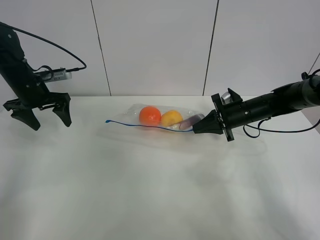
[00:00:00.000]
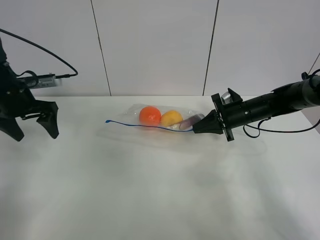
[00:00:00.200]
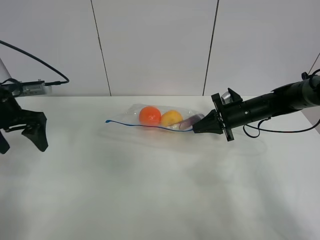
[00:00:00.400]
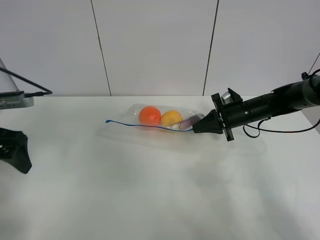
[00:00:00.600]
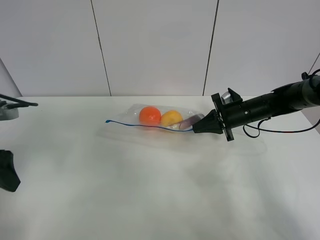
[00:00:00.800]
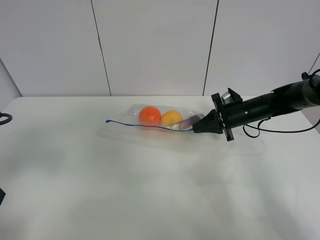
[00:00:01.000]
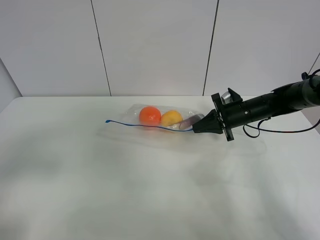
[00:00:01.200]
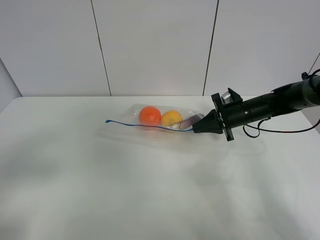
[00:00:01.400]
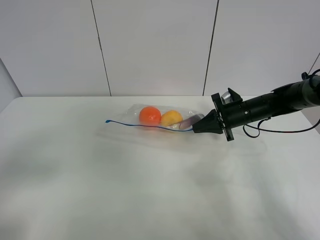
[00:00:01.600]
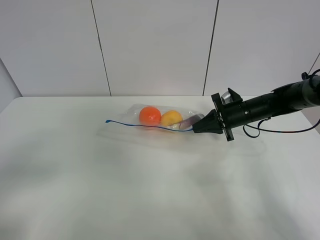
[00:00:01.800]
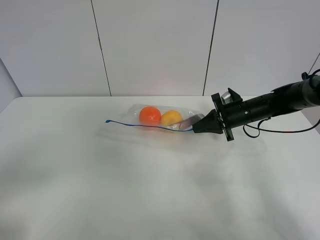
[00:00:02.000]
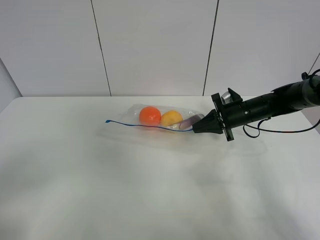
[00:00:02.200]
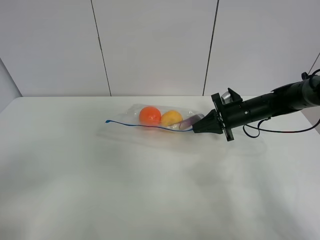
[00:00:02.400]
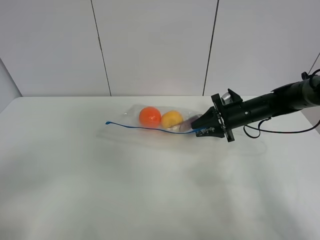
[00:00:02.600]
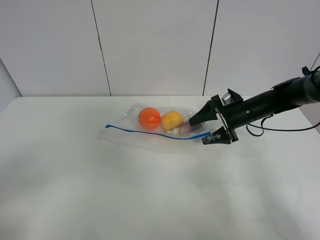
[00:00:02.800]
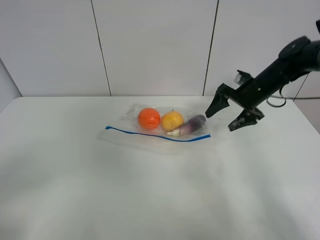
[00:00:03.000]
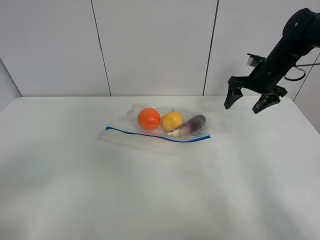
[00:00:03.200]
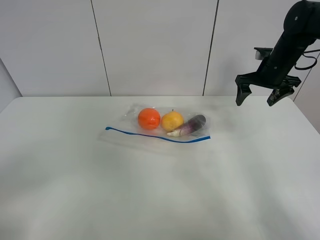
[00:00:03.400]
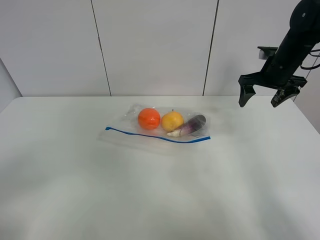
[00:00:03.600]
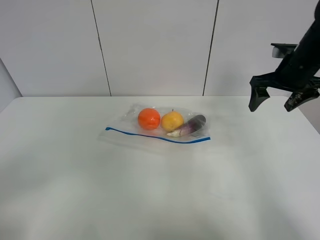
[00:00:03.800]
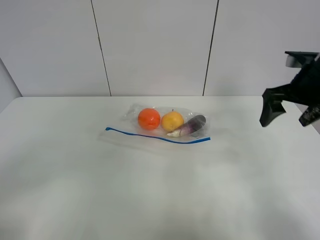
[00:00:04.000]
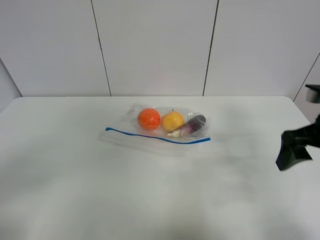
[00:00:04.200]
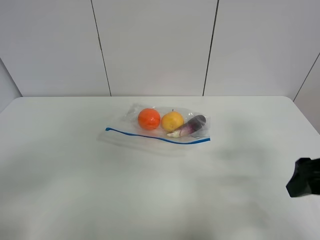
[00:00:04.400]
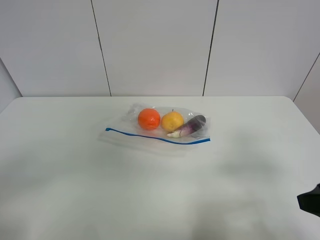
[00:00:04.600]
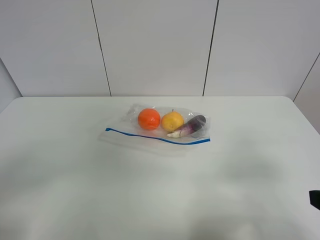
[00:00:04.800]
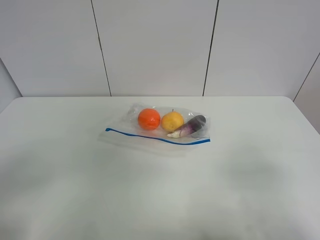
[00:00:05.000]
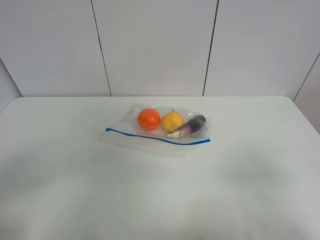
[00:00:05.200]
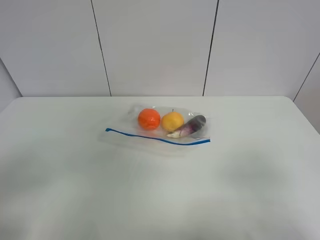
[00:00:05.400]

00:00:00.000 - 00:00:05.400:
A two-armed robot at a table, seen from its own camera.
00:00:00.000 - 00:00:01.400: The left gripper is displaced backward by some 35 cm.
00:00:01.400 - 00:00:02.800: The left gripper shifts about 10 cm backward, while the right gripper opens up.
00:00:02.800 - 00:00:04.000: The right gripper moves upward and backward, approximately 20 cm.
00:00:04.000 - 00:00:05.400: The right gripper travels backward by some 30 cm.

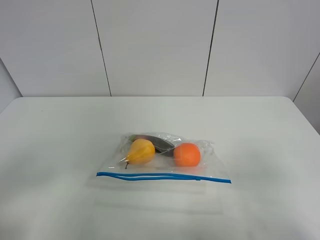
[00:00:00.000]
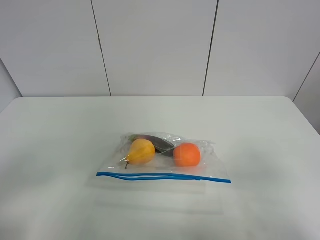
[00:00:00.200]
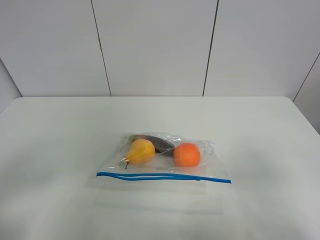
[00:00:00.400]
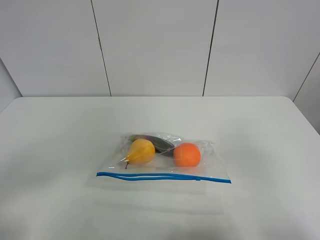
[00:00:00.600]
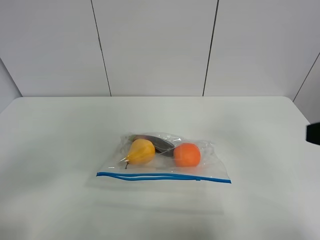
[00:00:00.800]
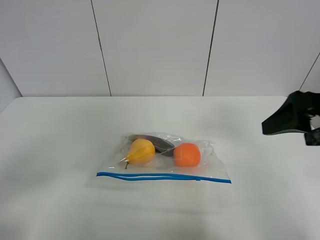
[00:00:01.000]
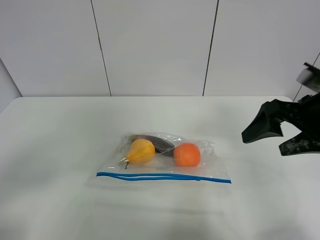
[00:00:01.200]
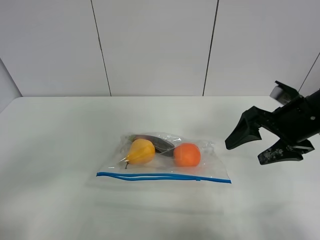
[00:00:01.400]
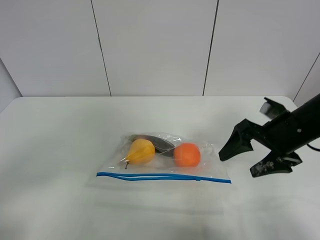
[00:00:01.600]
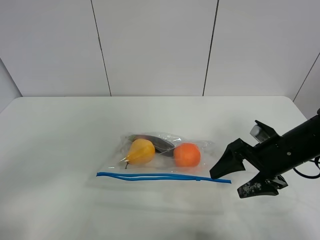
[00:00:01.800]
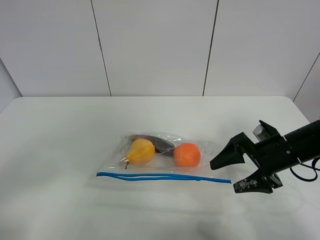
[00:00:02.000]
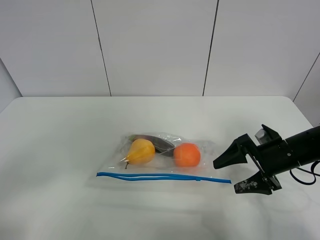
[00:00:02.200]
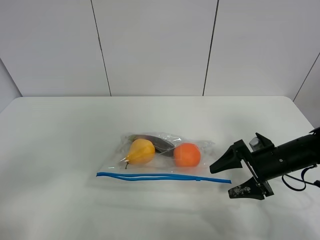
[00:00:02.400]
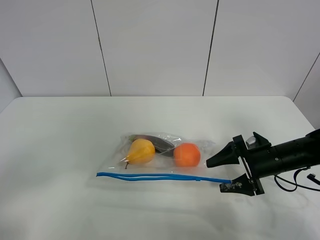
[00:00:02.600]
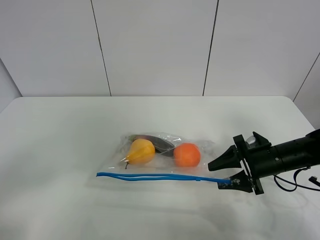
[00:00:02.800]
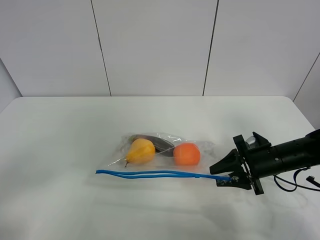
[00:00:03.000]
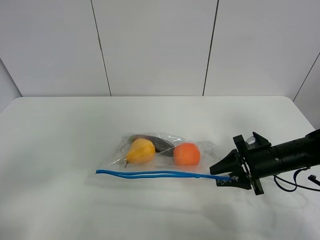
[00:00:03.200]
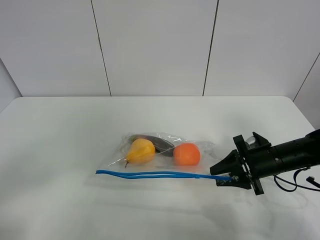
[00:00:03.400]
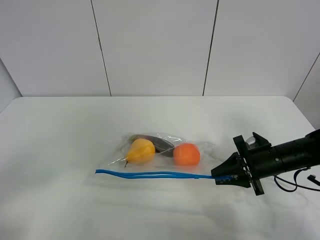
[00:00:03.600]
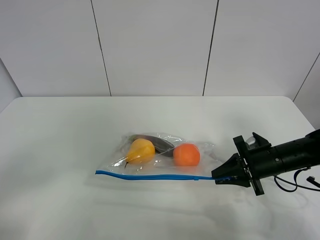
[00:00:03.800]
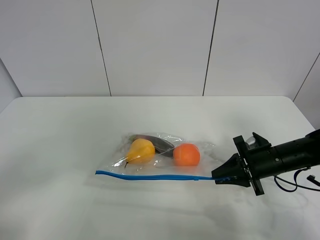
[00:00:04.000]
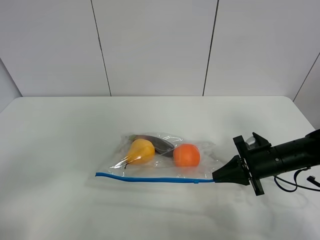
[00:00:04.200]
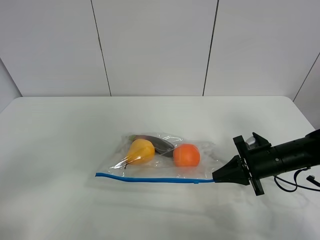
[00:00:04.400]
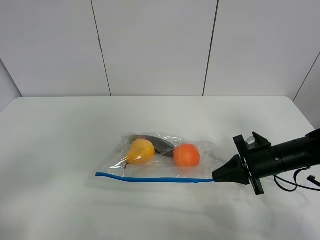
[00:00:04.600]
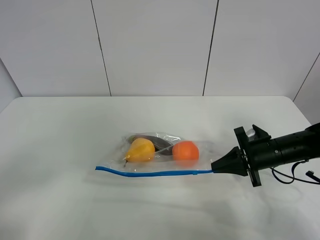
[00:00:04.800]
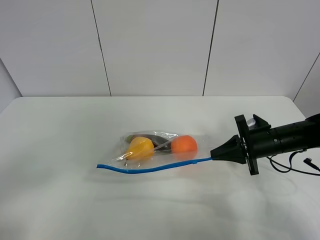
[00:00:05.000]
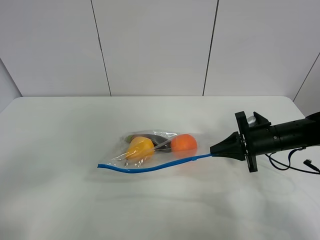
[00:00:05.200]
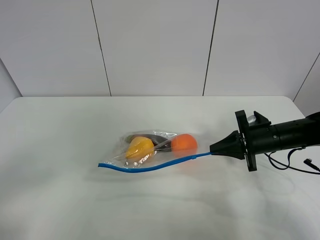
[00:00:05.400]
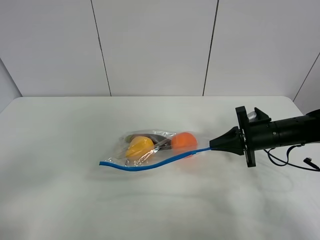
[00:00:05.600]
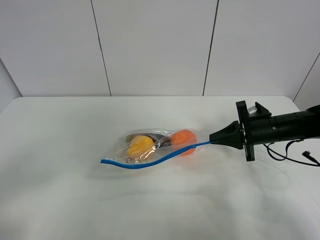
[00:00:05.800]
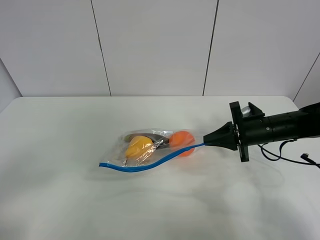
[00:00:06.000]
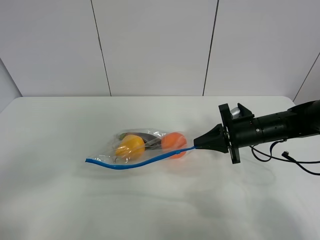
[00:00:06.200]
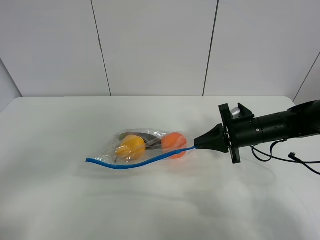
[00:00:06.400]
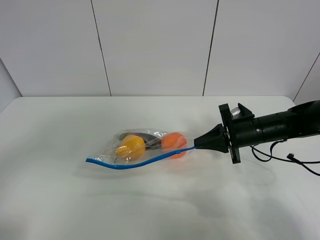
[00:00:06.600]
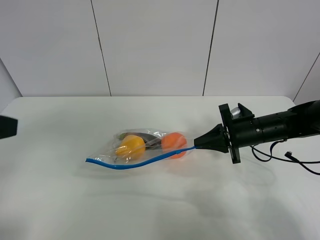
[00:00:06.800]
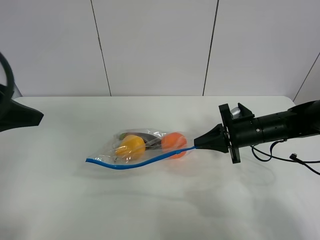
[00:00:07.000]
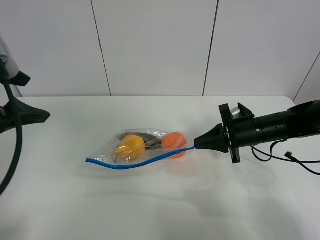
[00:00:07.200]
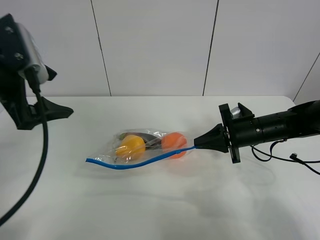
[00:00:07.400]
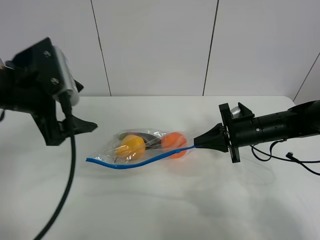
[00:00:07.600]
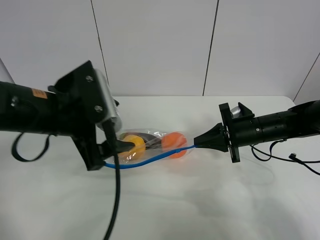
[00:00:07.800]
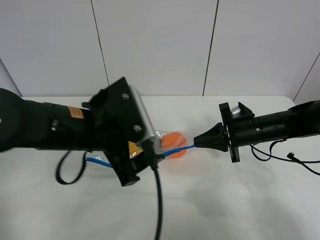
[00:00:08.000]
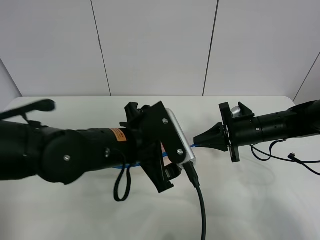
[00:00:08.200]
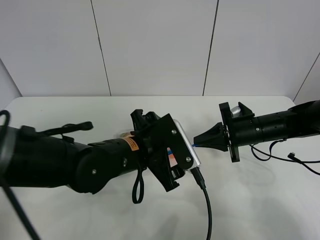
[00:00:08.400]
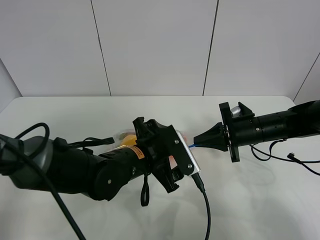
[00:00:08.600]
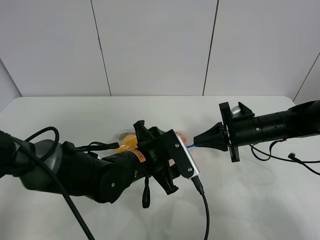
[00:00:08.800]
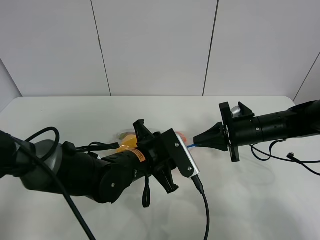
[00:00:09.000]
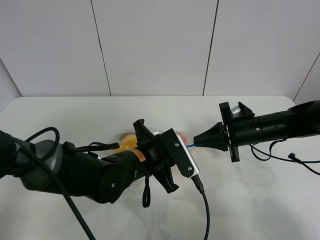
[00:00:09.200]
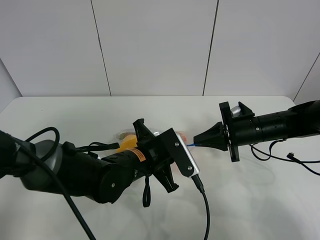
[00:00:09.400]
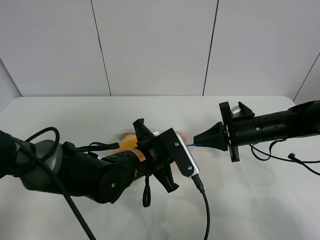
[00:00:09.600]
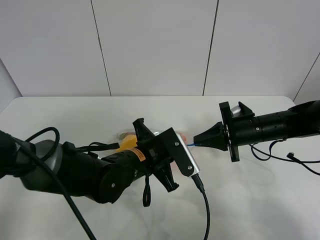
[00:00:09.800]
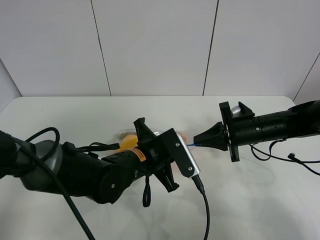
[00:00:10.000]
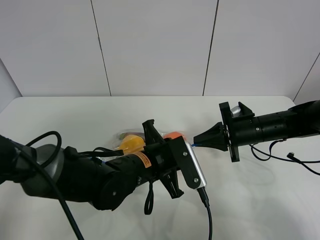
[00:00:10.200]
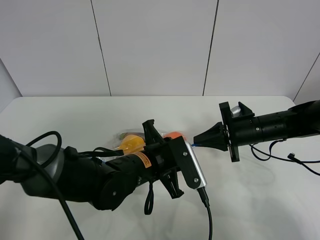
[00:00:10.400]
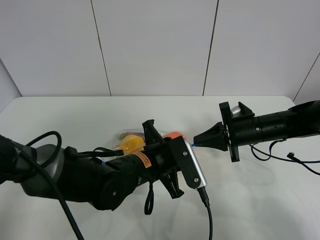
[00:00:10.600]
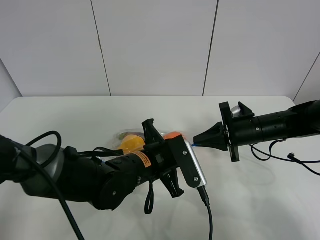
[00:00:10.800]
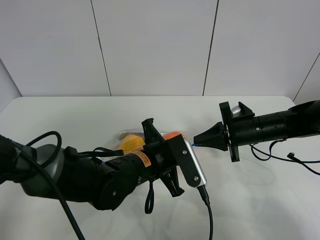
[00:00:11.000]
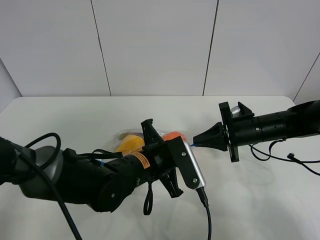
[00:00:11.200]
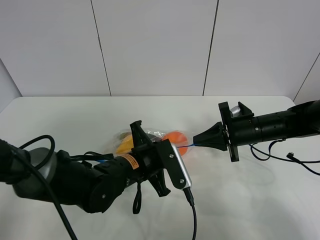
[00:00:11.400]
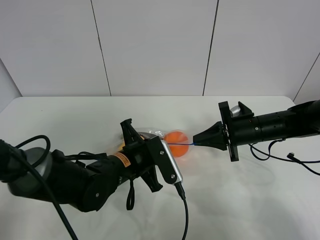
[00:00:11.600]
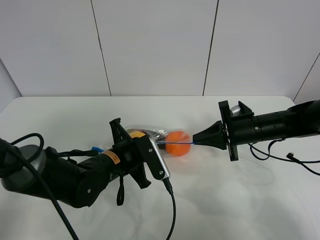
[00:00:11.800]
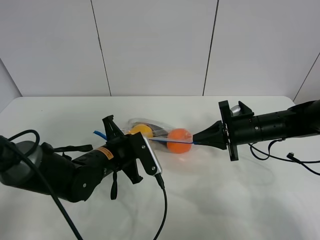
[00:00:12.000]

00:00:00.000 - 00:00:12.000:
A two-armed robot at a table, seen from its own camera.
Step, 00:00:00.000 - 00:00:04.200: Grasp the fruit bag with right gripper.
Step, 00:00:04.400 - 00:00:06.400: Lift the fruit bag with your right gripper.
00:00:00.000 - 00:00:01.600: The right gripper shifts about 25 cm forward.
00:00:01.600 - 00:00:03.000: The right gripper heads downward, covering approximately 10 cm, and closes.
00:00:03.000 - 00:00:04.400: The right gripper closes up.
00:00:04.400 - 00:00:06.000: The right gripper heads forward, covering roughly 5 cm.
00:00:06.000 - 00:00:07.600: The left gripper goes about 25 cm forward and to the right.
00:00:07.600 - 00:00:09.000: The left gripper travels to the right and downward by about 25 cm, and closes.
00:00:09.000 - 00:00:10.400: There are only small adjustments of the grippers.
00:00:10.400 - 00:00:12.000: The left gripper travels to the left by roughly 10 cm.

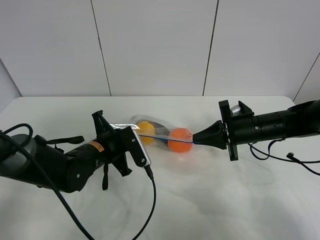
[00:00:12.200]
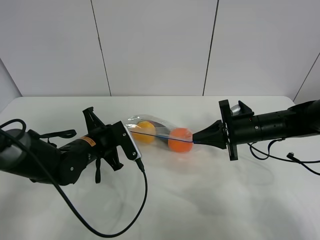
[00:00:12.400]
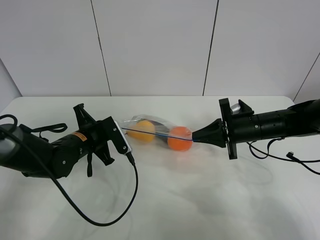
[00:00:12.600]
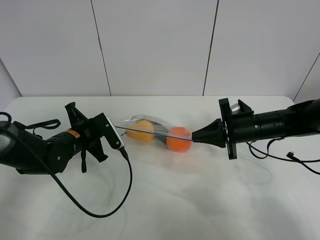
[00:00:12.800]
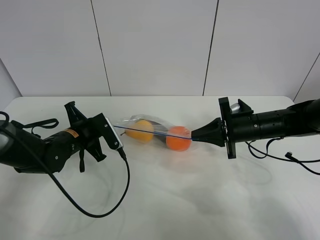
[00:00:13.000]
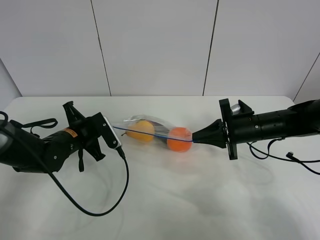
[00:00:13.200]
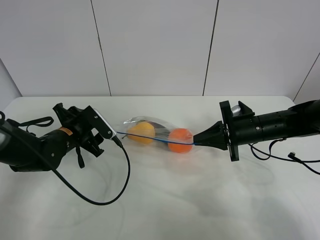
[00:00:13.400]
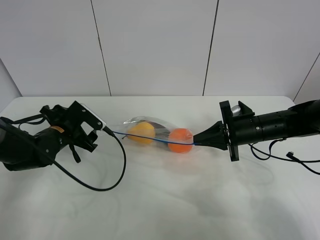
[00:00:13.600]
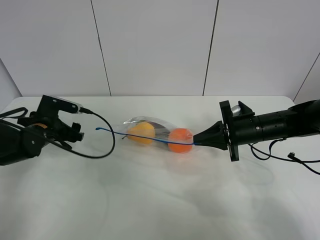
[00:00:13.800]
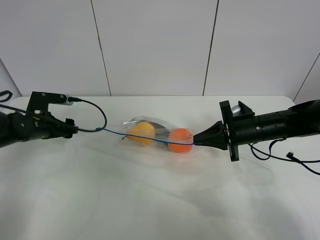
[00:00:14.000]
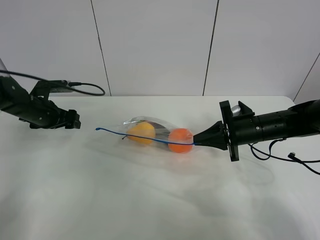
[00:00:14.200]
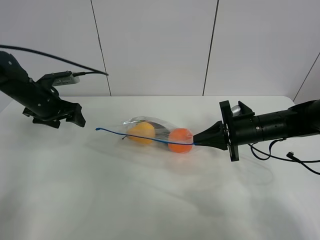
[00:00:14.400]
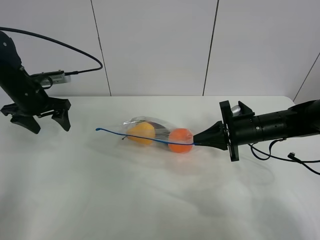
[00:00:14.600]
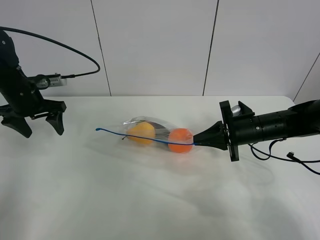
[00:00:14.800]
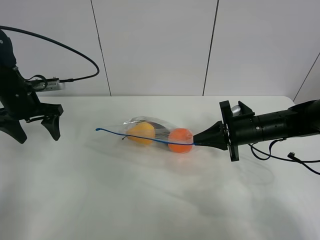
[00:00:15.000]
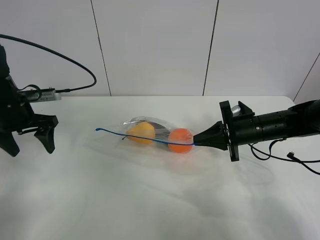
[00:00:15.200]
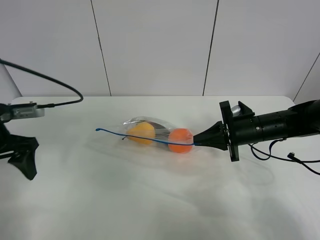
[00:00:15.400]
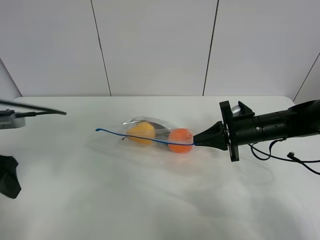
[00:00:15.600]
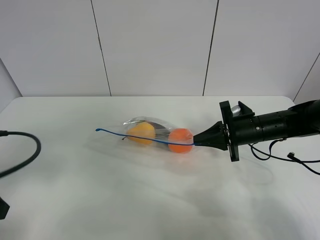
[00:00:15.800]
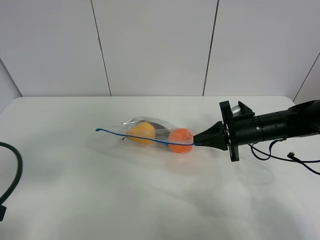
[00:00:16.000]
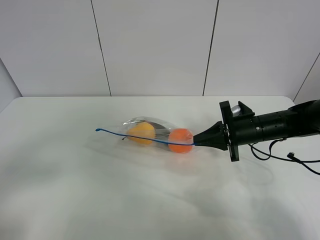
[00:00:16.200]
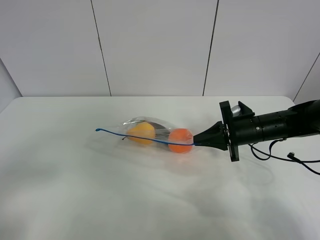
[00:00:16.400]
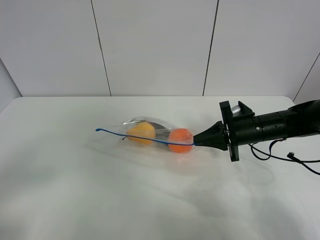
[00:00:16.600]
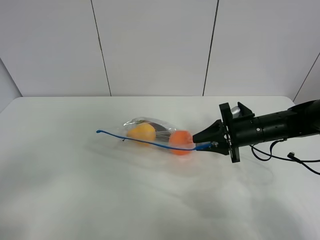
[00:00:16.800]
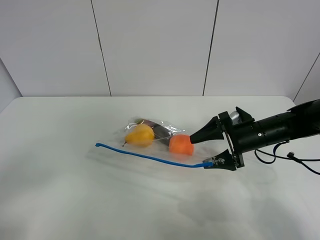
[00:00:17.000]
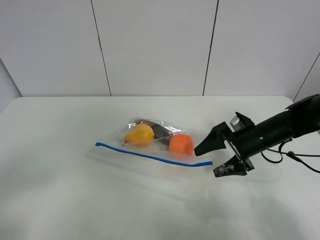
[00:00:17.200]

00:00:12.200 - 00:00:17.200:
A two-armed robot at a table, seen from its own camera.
00:00:12.200 - 00:00:13.800: The left gripper heads to the left, covering approximately 15 cm, and opens.
00:00:13.800 - 00:00:15.600: The left gripper travels backward and upward by approximately 20 cm.
00:00:15.600 - 00:00:17.200: The right gripper opens its fingers; the left gripper goes roughly 20 cm backward.
